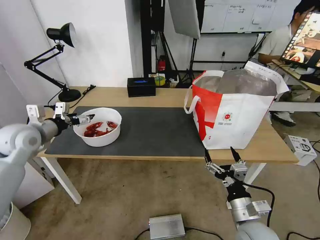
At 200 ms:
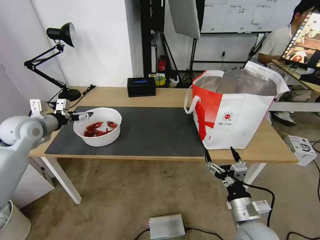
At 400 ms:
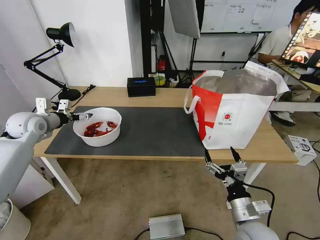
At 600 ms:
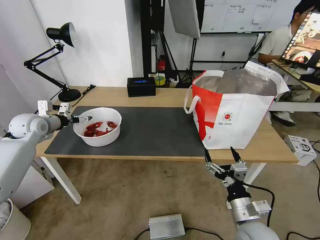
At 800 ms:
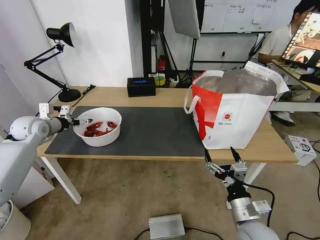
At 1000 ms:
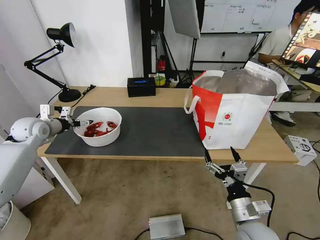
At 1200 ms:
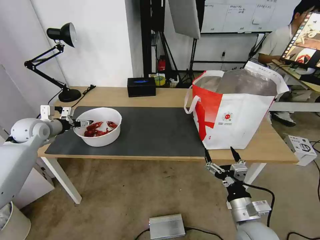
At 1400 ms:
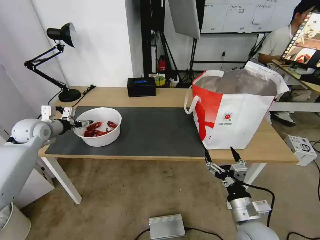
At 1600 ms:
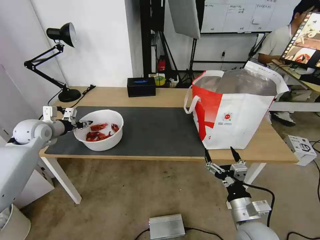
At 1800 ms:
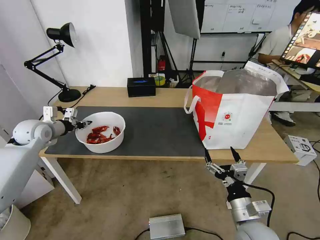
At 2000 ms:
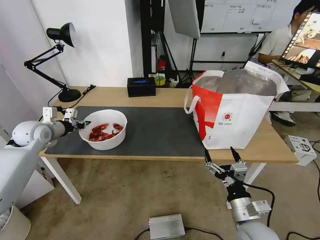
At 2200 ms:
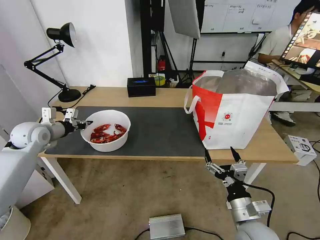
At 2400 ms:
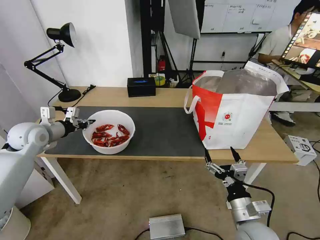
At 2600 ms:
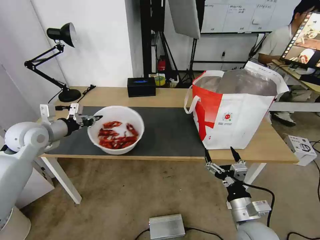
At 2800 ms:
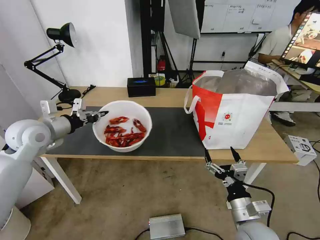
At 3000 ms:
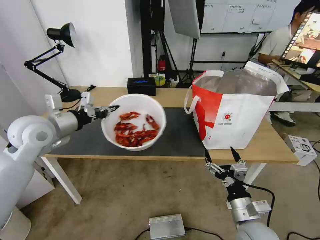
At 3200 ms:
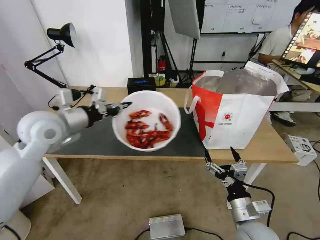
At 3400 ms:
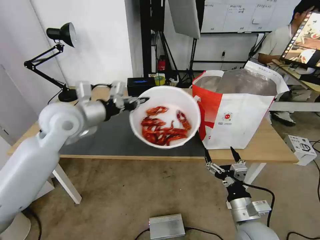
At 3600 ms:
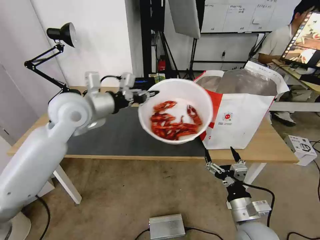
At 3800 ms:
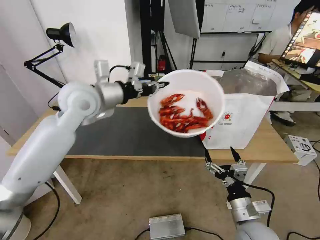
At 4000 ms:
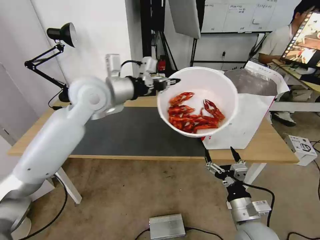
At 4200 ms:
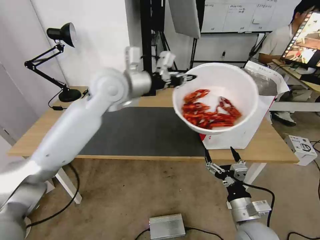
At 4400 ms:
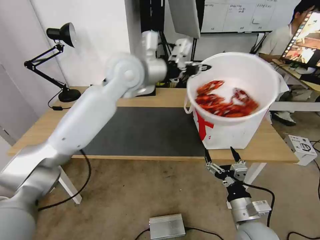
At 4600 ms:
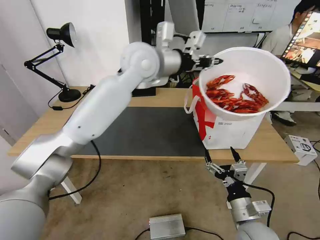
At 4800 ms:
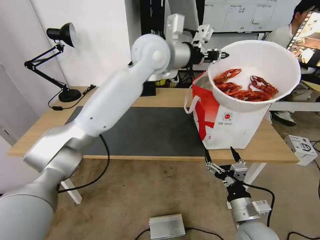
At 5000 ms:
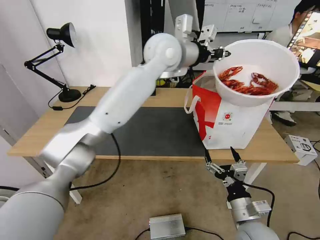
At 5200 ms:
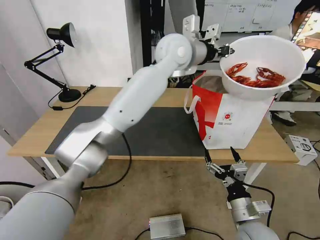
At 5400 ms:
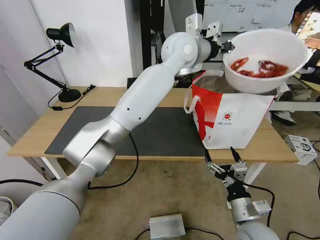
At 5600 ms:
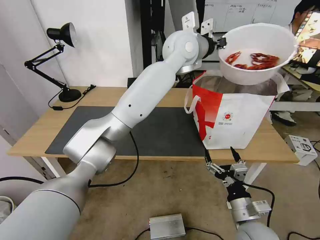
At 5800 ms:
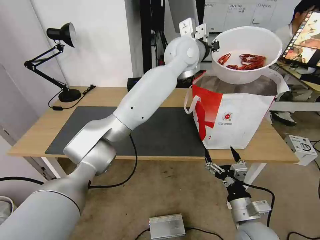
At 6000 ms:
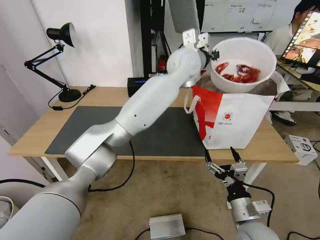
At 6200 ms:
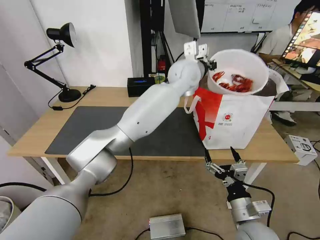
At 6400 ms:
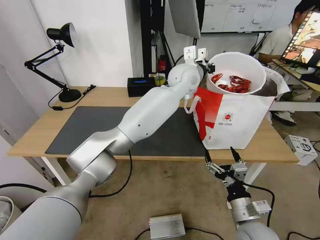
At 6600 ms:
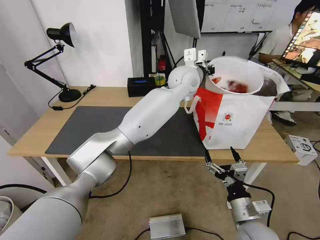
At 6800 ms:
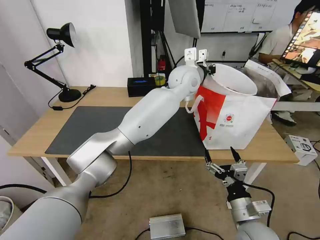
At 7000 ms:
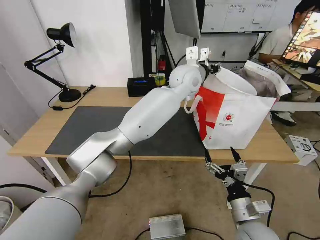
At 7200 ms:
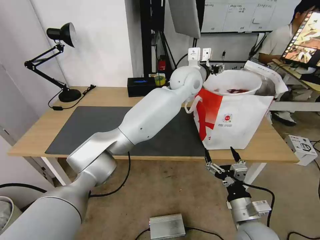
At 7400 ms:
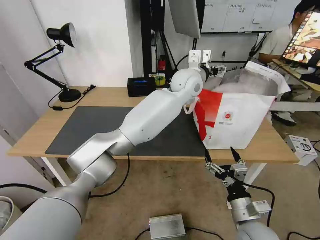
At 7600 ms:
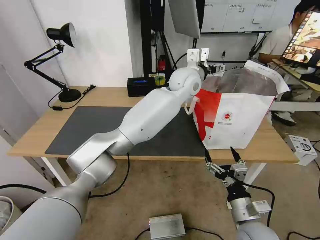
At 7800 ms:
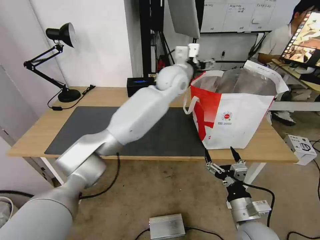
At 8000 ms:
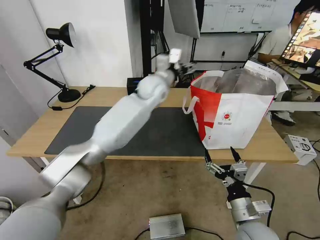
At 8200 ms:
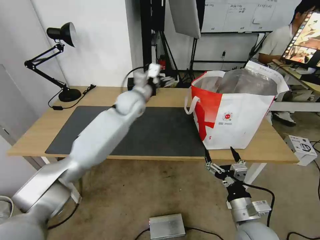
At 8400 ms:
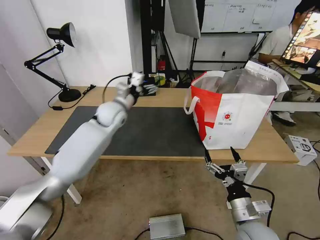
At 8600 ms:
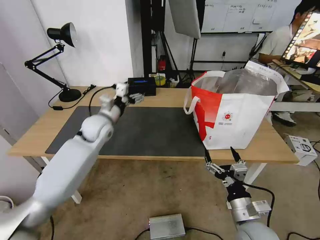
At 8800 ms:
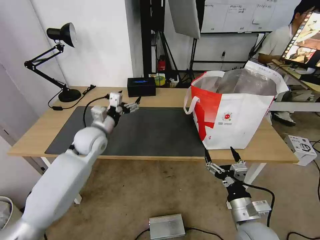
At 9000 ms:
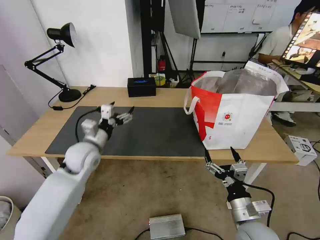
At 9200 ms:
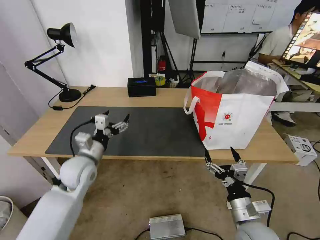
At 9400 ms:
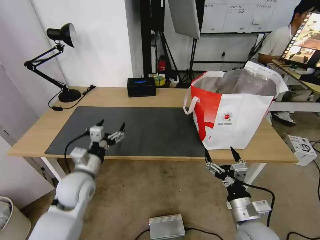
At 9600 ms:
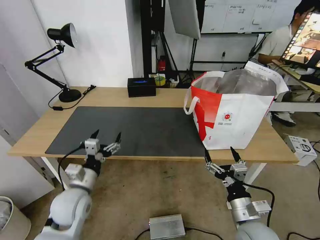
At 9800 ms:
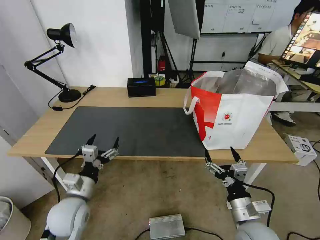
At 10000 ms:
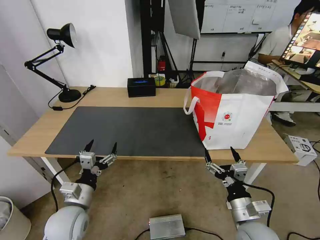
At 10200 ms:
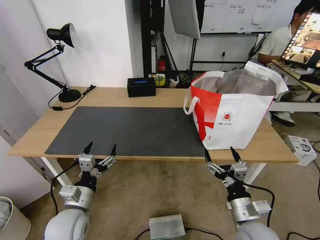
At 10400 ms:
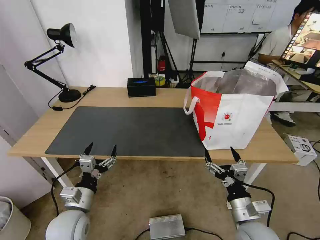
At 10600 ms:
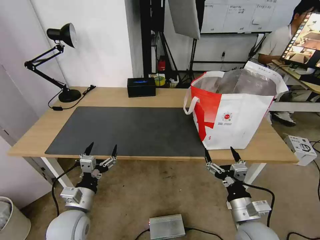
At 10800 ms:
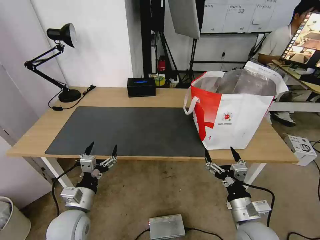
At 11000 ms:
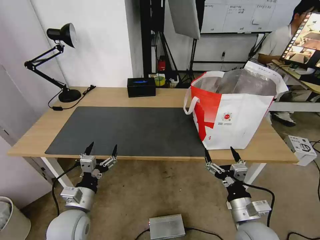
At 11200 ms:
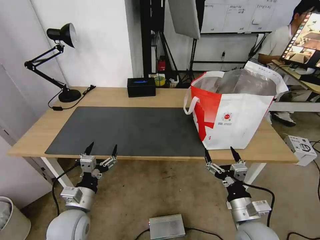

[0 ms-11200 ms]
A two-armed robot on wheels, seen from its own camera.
Task of the whole recording: Pick up the trash from the table and place it into the takeout bag.
0 ms to 1600 ms: The left gripper goes approximately 5 cm forward, and closes its fingers.
1600 ms to 3200 ms: The left gripper goes roughly 20 cm to the right, upward and backward, and closes its fingers.
3200 ms to 4800 ms: The left gripper shifts roughly 30 cm to the right, upward and forward.
4800 ms to 6400 ms: The left gripper moves to the right and downward, about 15 cm.
6400 ms to 8000 ms: The left gripper heads to the left, covering approximately 10 cm, and opens up.
8000 ms to 9600 ms: The left gripper shifts roughly 40 cm backward, to the left and downward.
9600 ms to 11200 ms: The left gripper moves backward, about 5 cm.
